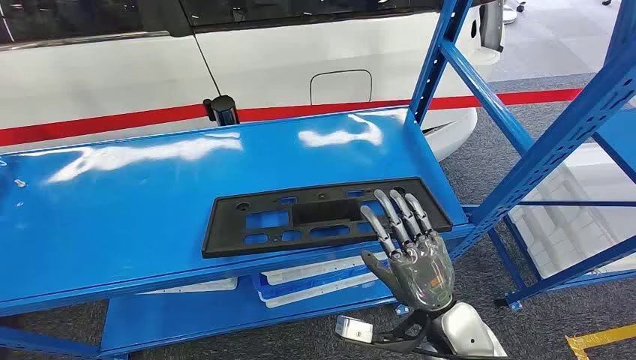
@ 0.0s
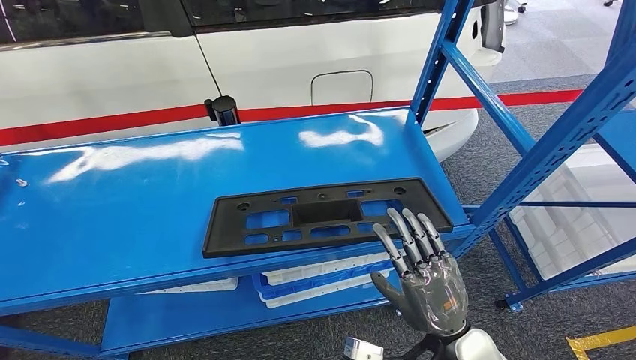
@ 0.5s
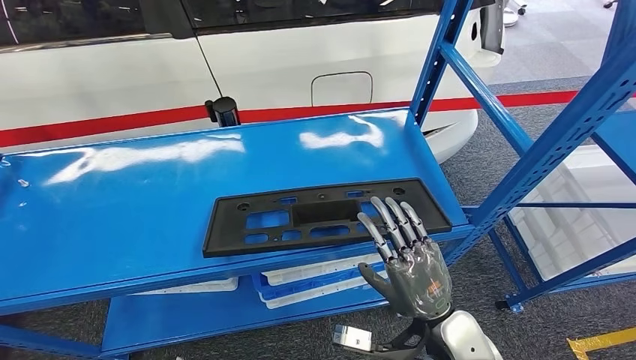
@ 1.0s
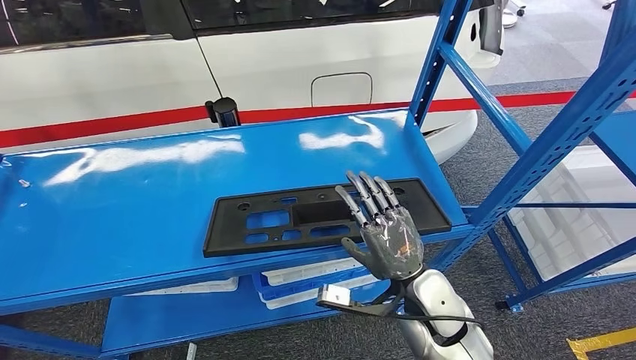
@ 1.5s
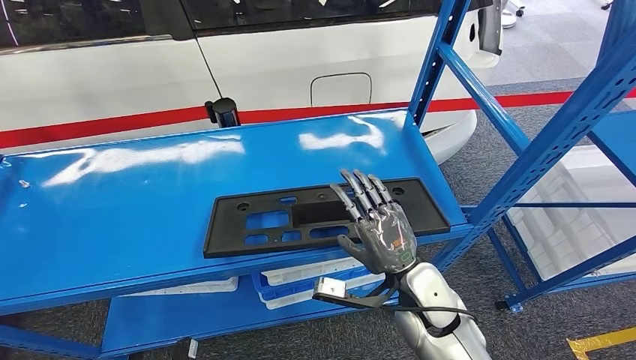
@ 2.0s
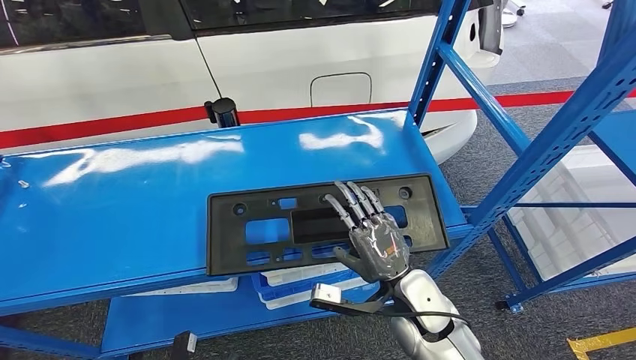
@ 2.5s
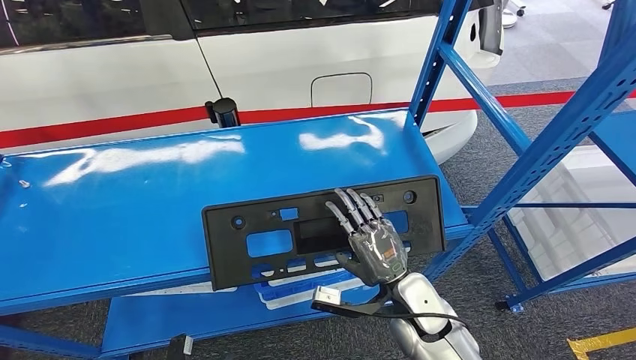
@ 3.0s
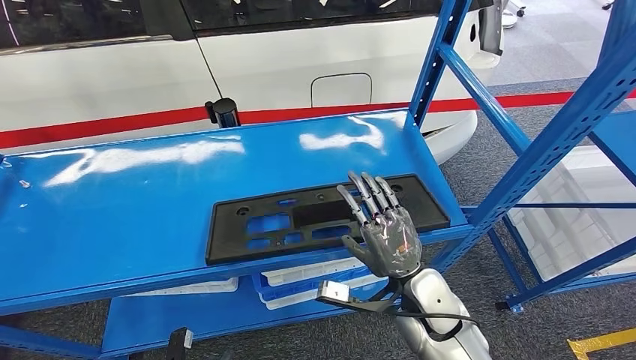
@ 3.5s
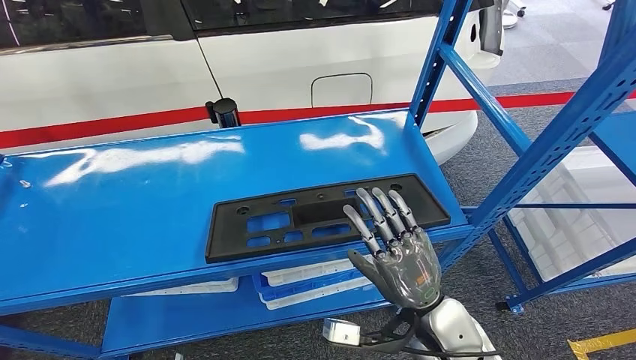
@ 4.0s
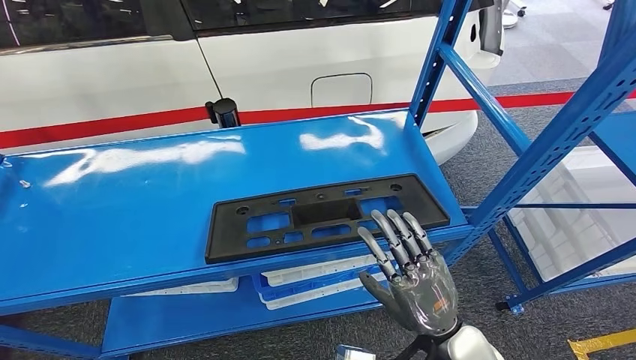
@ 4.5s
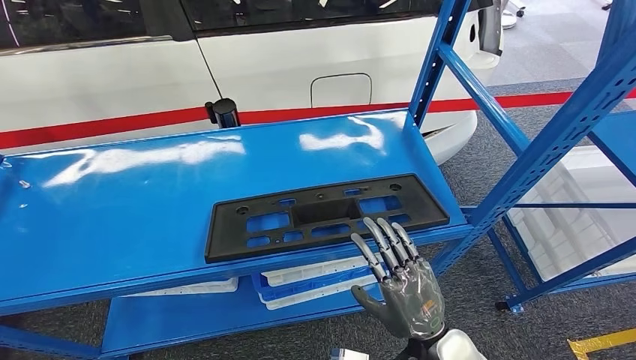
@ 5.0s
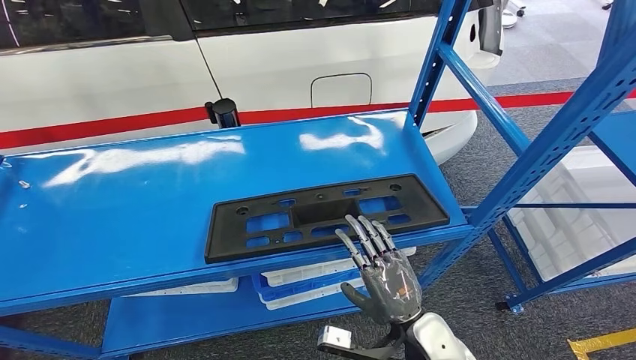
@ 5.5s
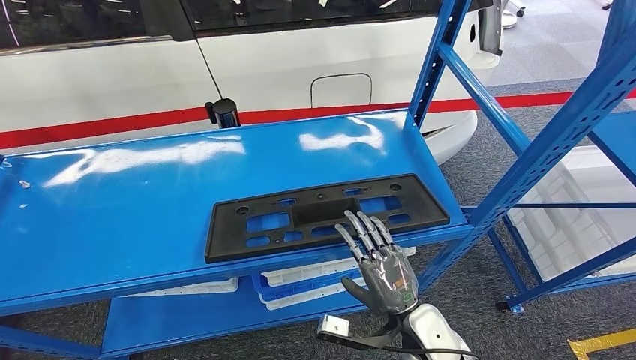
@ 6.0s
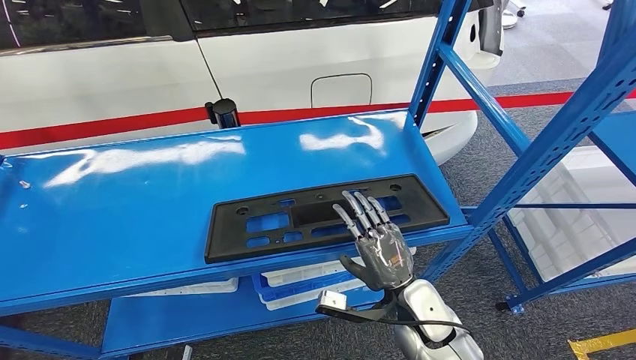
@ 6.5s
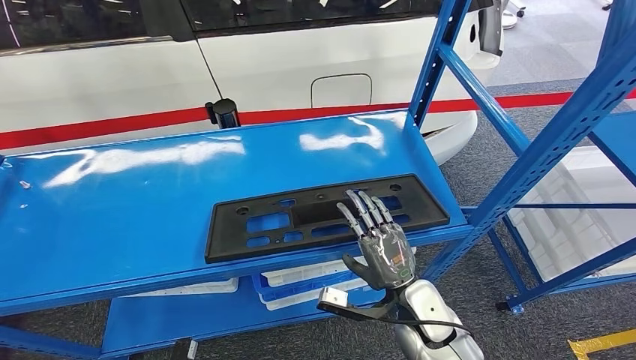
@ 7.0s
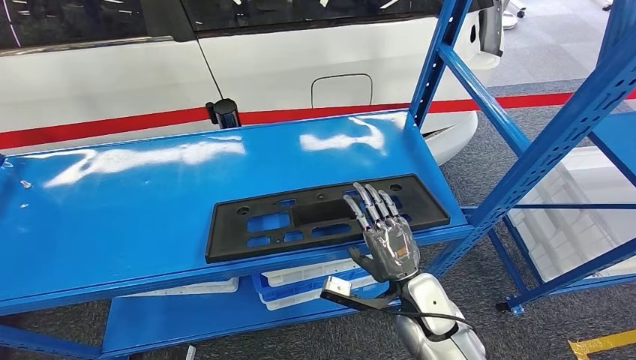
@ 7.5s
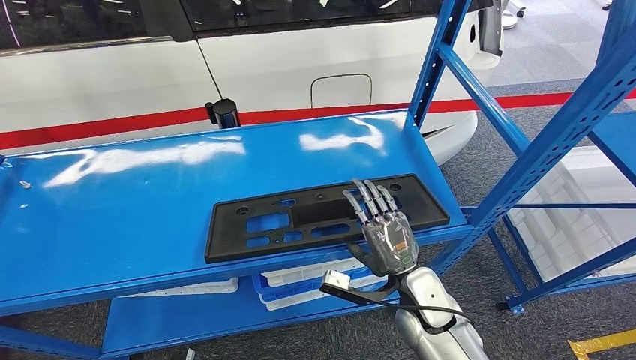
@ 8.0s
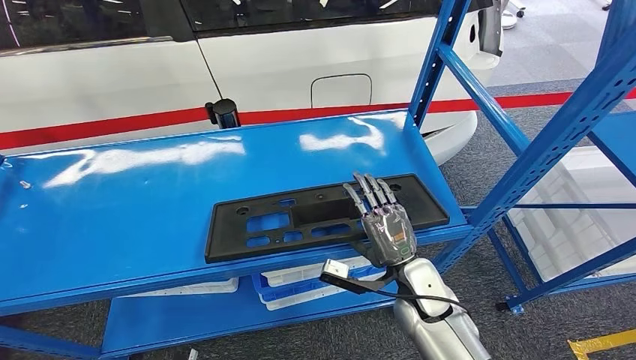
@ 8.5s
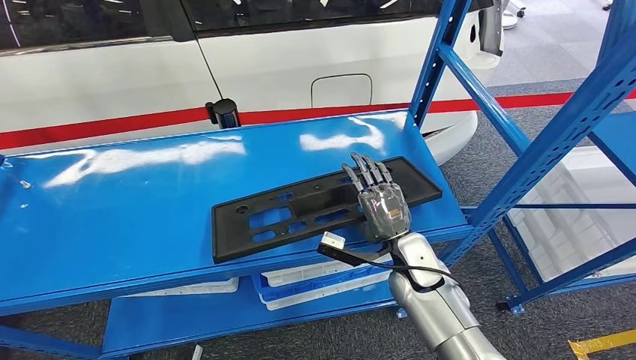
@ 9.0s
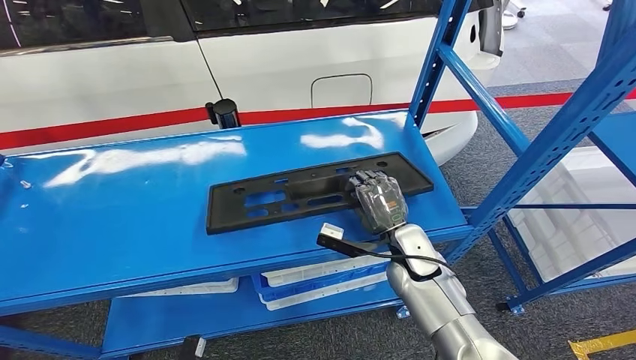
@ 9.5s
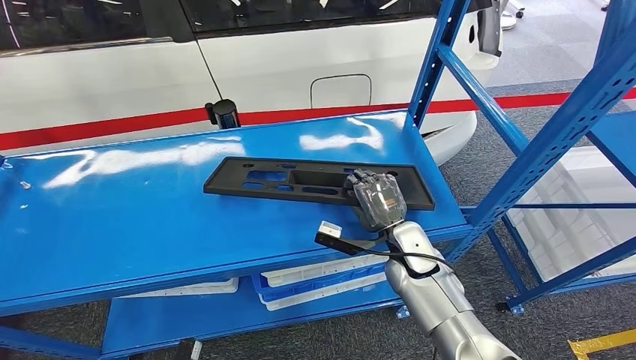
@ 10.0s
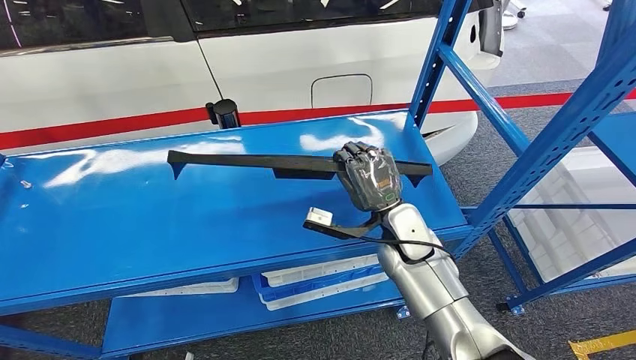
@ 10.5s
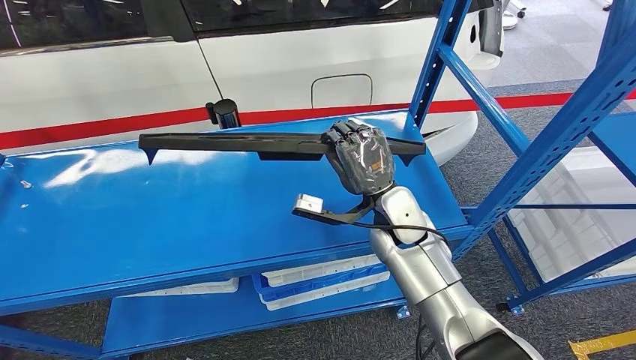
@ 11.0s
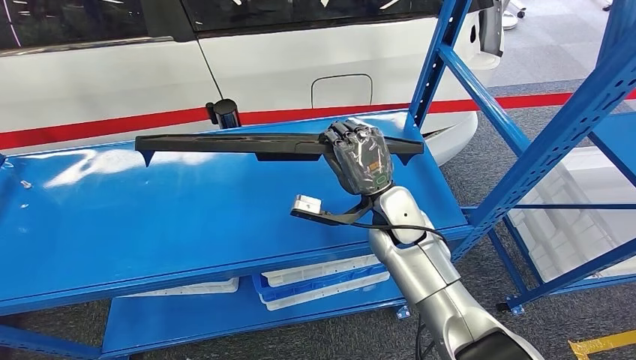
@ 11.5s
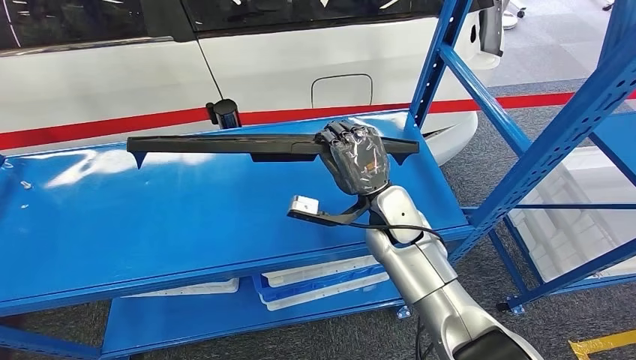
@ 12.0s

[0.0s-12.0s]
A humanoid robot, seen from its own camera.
2.0s to 4.0s: The right hand shifts about 5 cm backward.
4.0s to 6.0s: The right hand moves downward, about 5 cm.
6.0s to 8.0s: The right hand shifts approximately 5 cm forward.
8.0s to 10.0s: The right hand travels forward by about 10 cm.
10.0s to 12.0s: The right hand is displaced upward by some 10 cm.

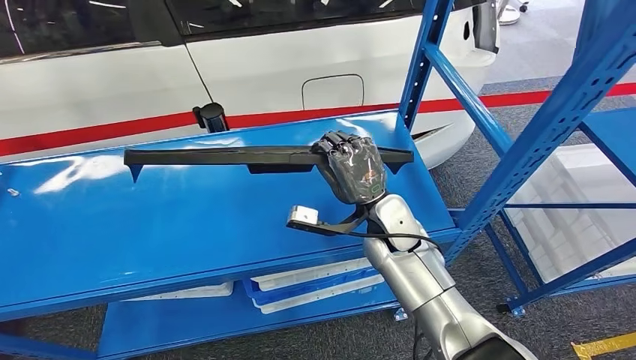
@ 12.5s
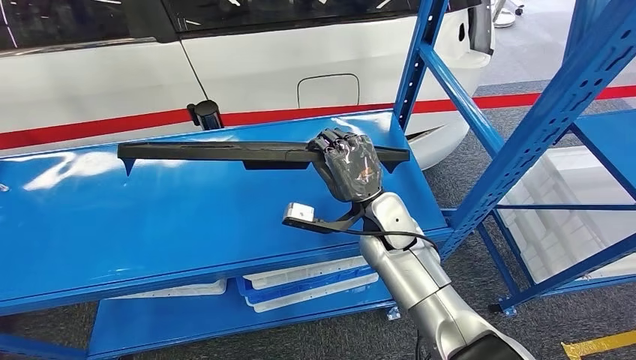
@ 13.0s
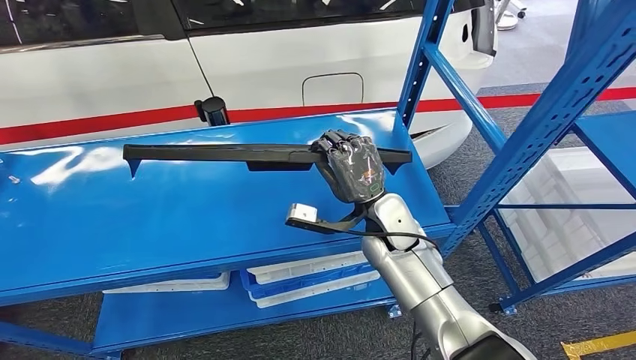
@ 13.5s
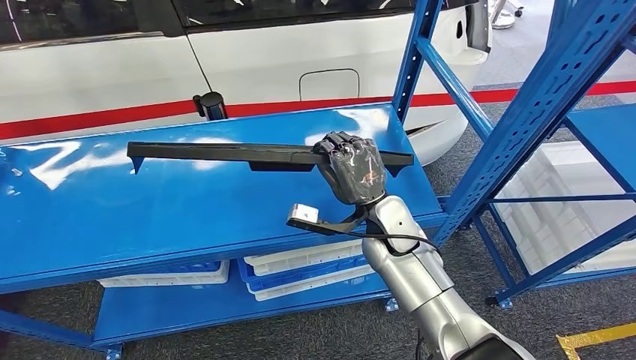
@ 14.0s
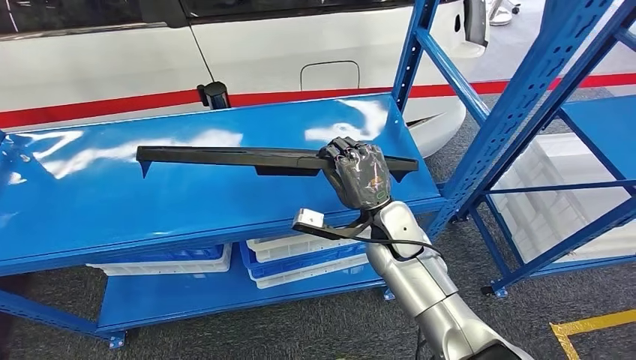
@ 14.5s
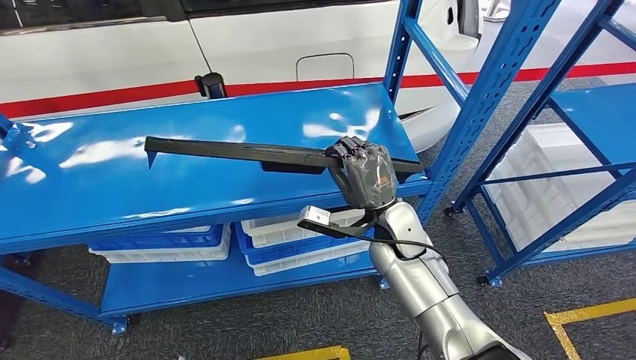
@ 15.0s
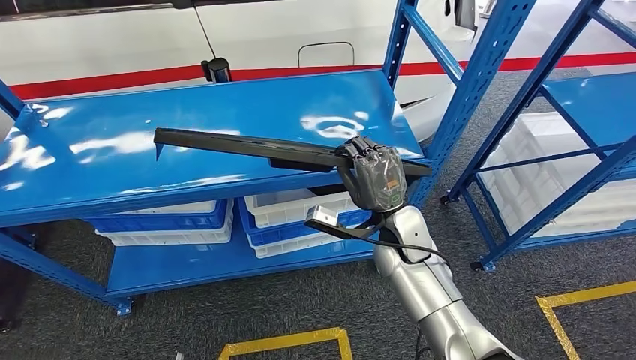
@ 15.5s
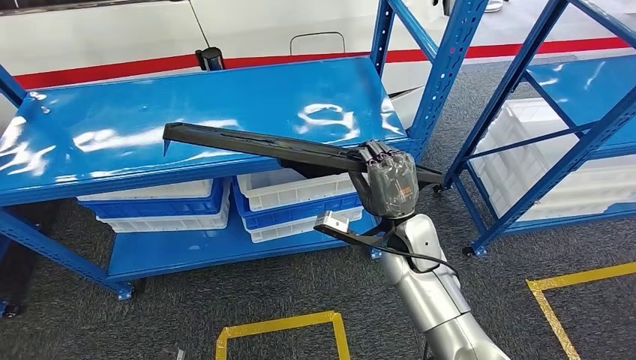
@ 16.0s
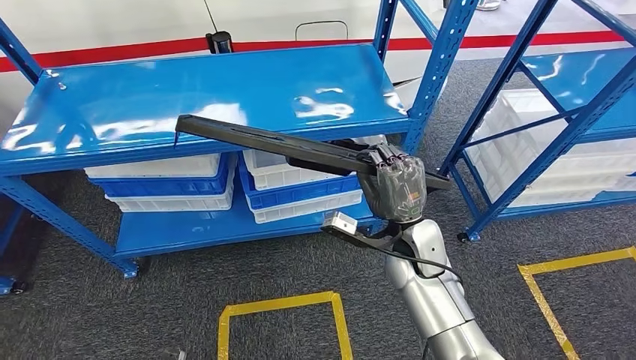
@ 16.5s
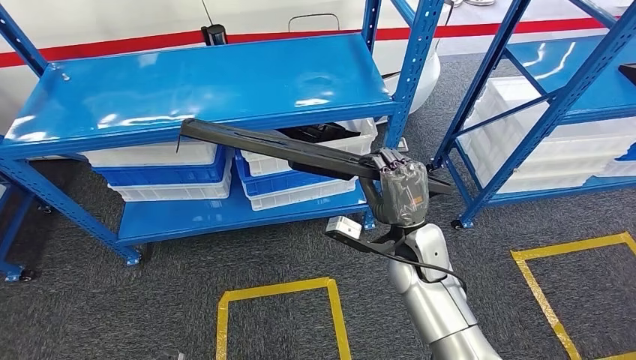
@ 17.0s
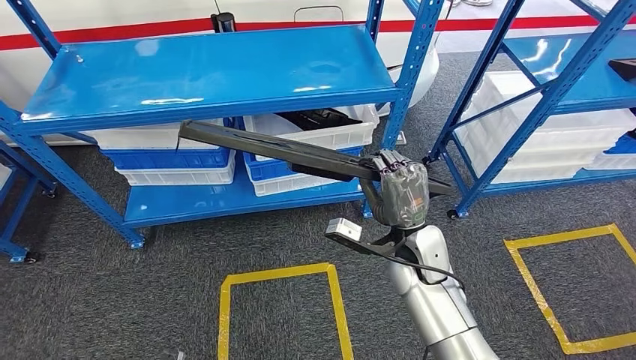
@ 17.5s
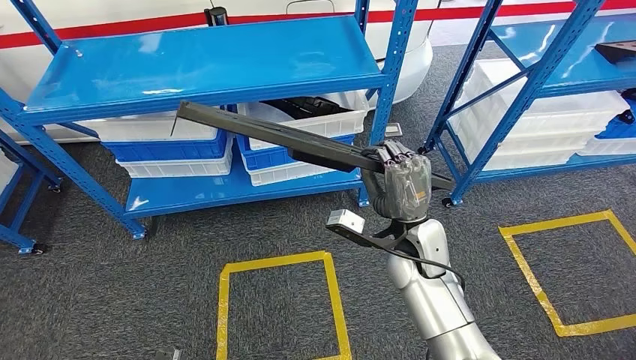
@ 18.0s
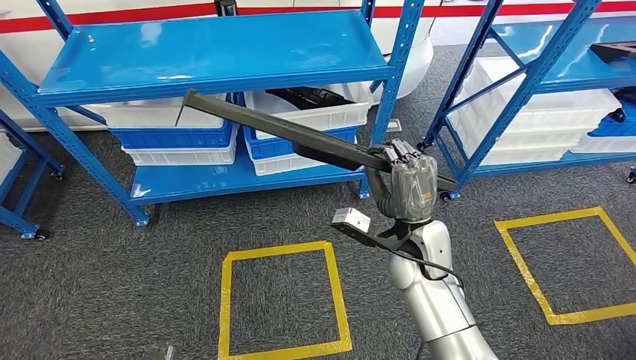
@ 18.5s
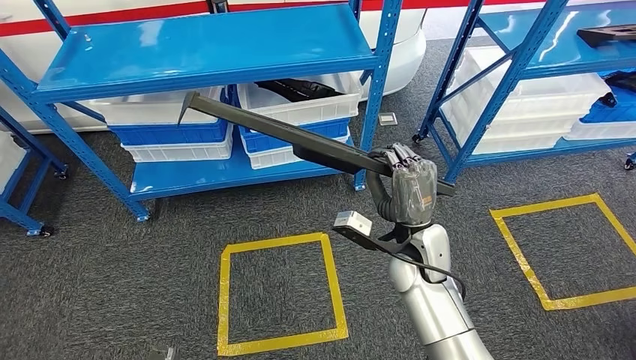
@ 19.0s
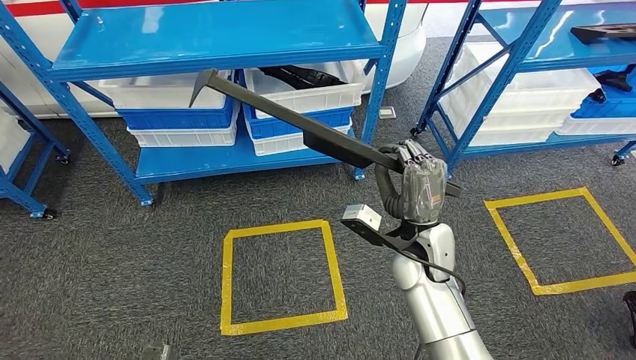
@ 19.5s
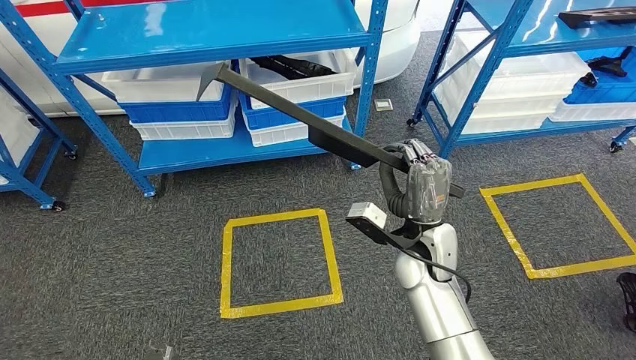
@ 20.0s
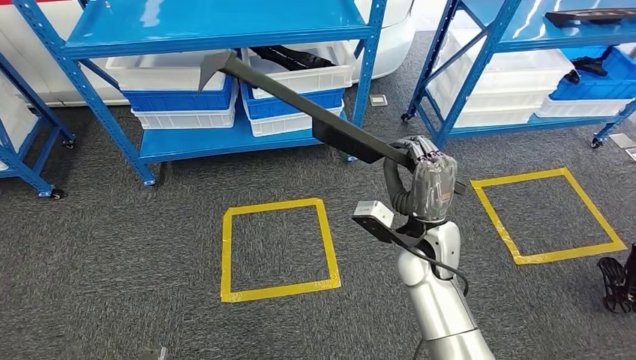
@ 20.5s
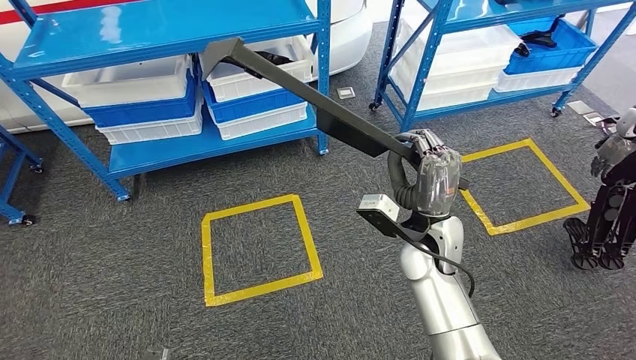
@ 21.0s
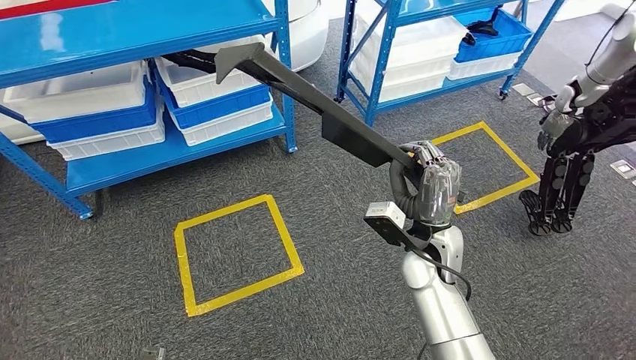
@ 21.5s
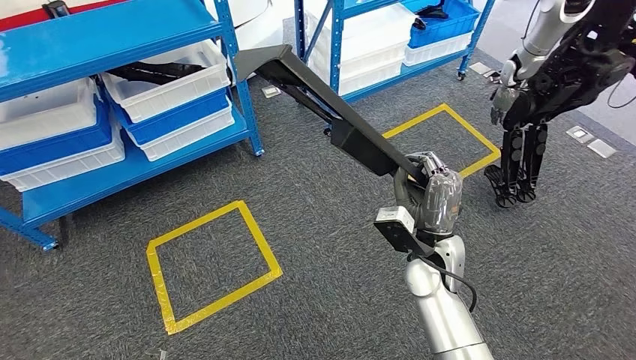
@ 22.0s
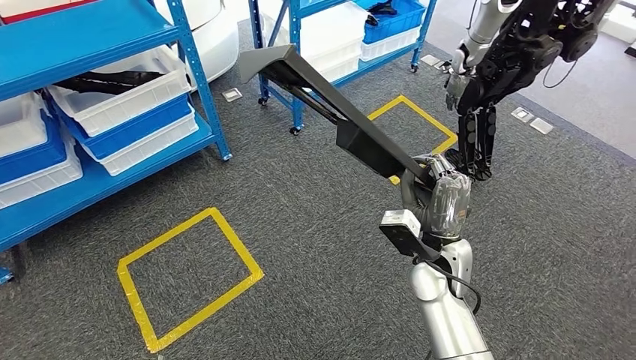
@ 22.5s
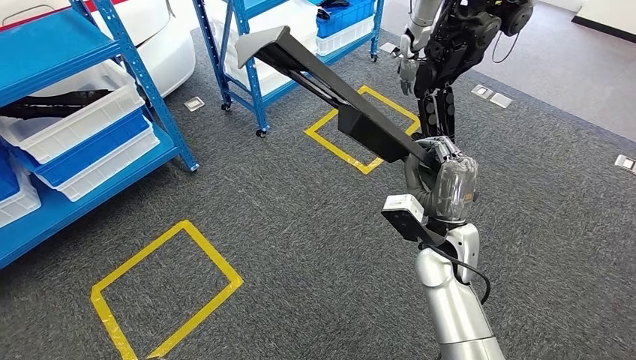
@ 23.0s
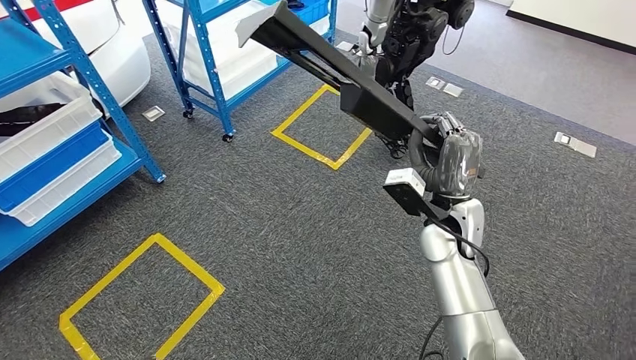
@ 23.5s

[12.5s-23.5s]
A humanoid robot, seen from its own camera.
Step, 12.5s to 15.5s: Pick up the large material from the shelf.
